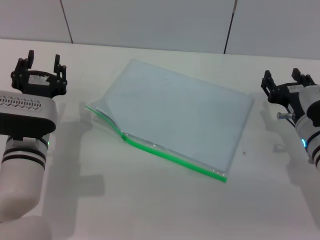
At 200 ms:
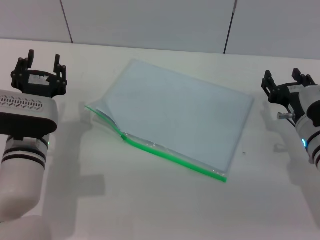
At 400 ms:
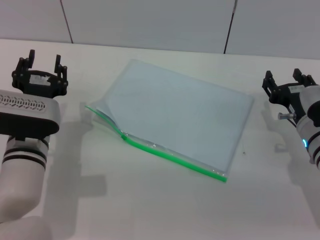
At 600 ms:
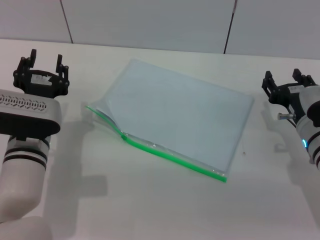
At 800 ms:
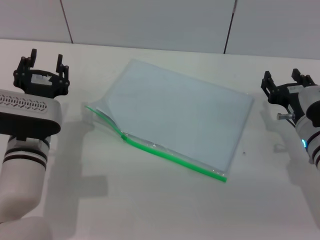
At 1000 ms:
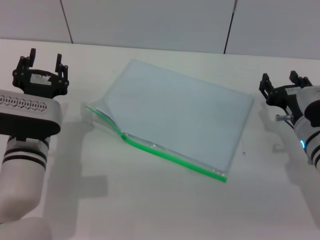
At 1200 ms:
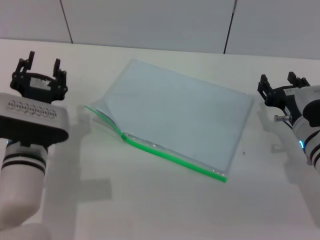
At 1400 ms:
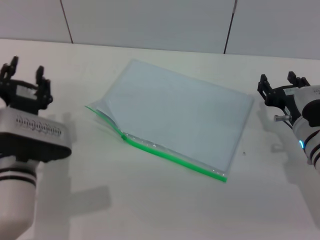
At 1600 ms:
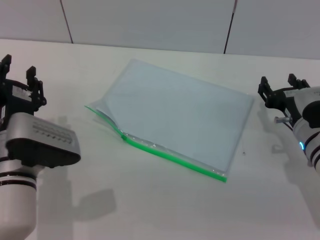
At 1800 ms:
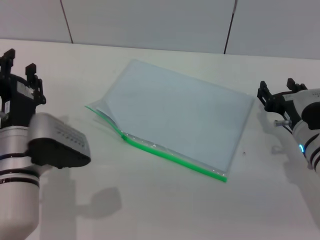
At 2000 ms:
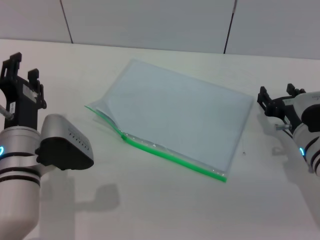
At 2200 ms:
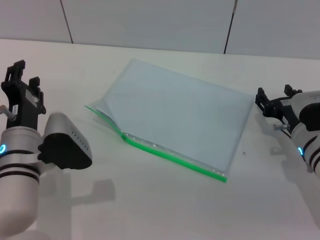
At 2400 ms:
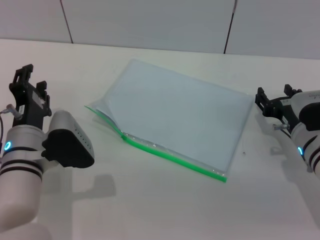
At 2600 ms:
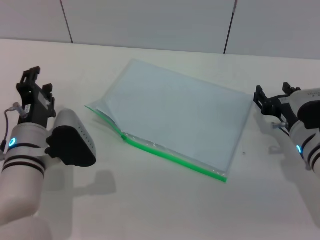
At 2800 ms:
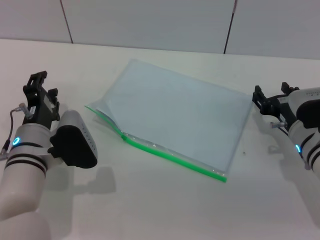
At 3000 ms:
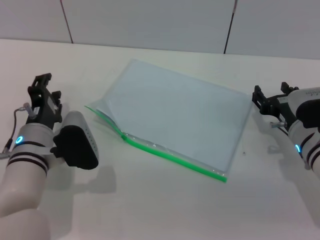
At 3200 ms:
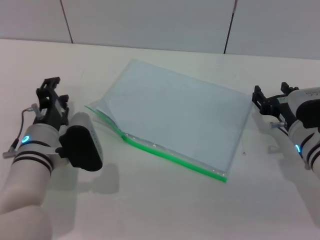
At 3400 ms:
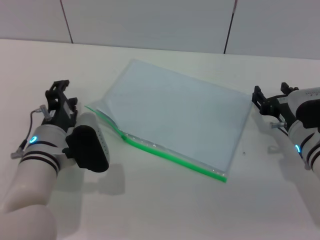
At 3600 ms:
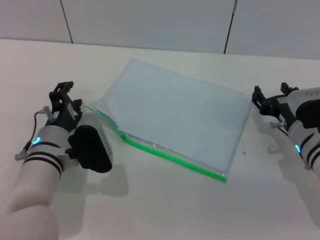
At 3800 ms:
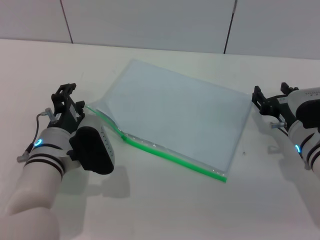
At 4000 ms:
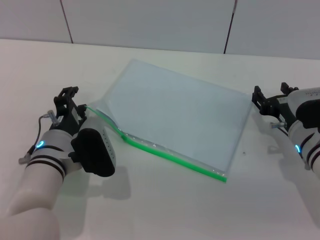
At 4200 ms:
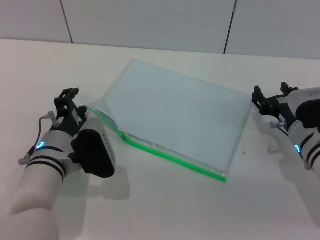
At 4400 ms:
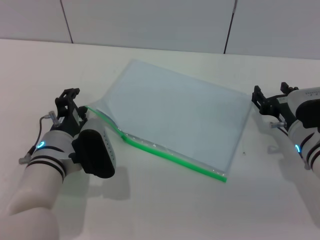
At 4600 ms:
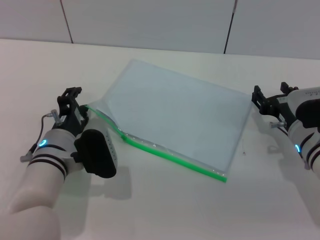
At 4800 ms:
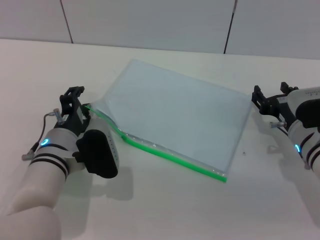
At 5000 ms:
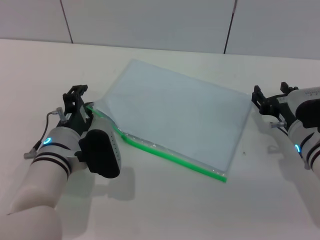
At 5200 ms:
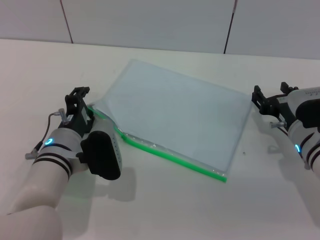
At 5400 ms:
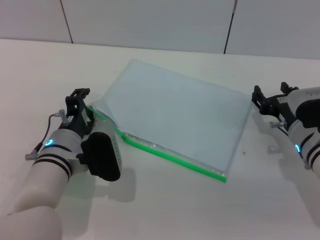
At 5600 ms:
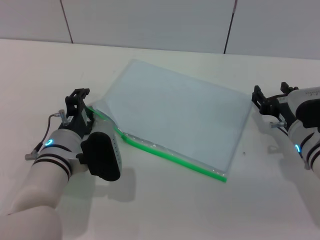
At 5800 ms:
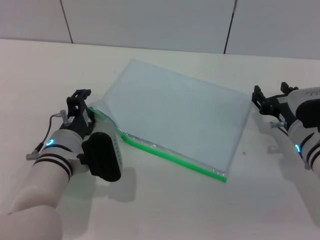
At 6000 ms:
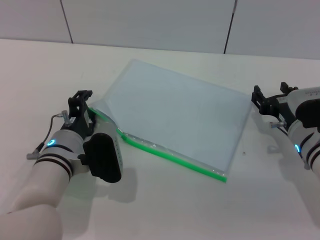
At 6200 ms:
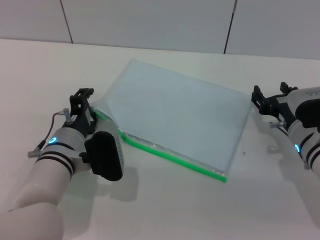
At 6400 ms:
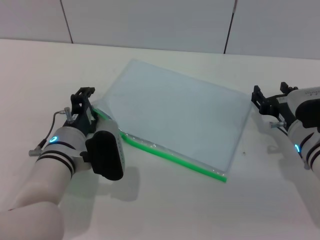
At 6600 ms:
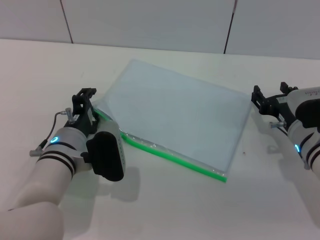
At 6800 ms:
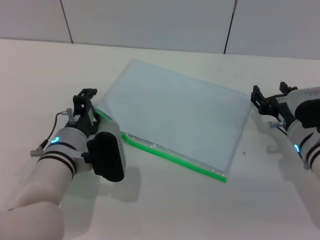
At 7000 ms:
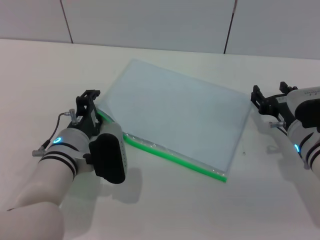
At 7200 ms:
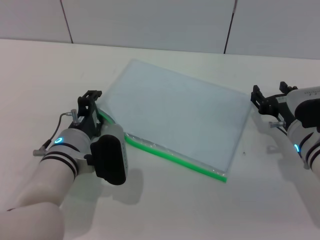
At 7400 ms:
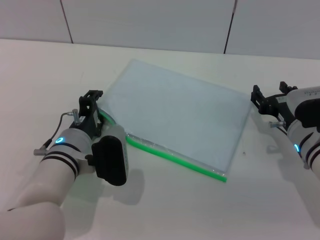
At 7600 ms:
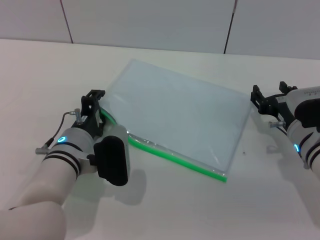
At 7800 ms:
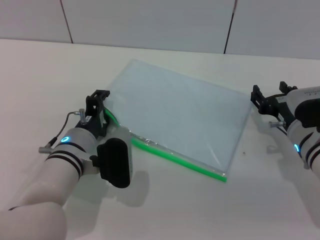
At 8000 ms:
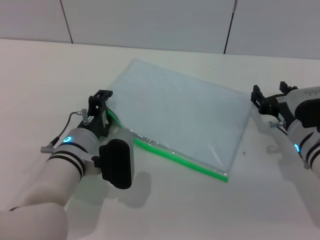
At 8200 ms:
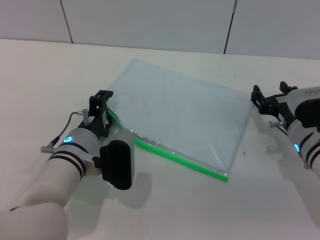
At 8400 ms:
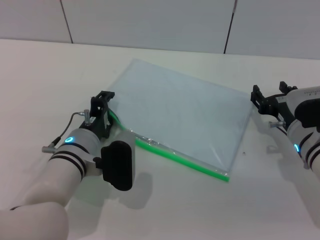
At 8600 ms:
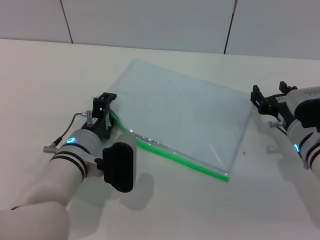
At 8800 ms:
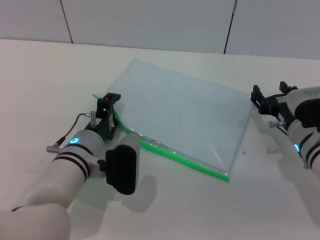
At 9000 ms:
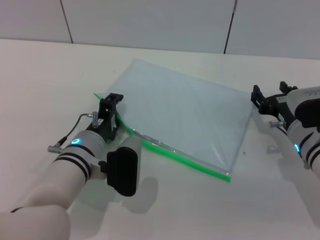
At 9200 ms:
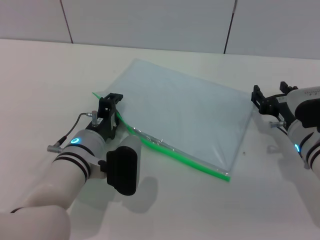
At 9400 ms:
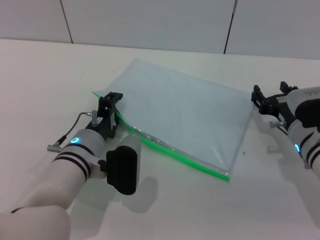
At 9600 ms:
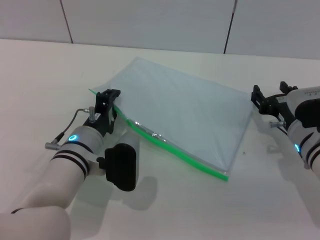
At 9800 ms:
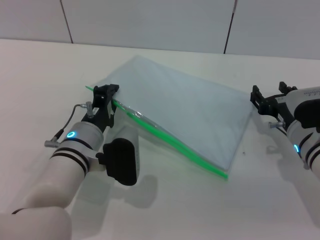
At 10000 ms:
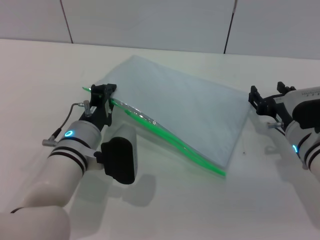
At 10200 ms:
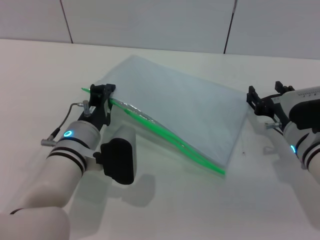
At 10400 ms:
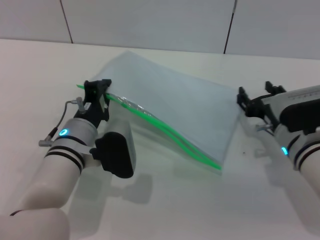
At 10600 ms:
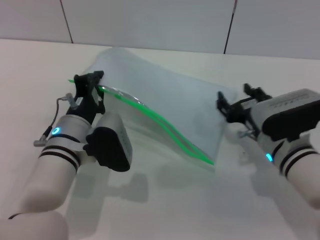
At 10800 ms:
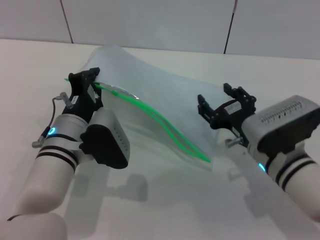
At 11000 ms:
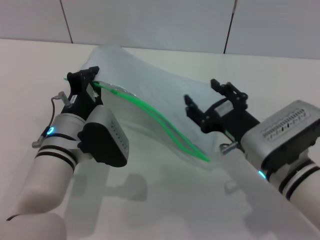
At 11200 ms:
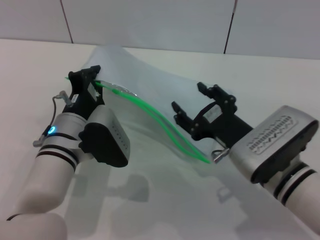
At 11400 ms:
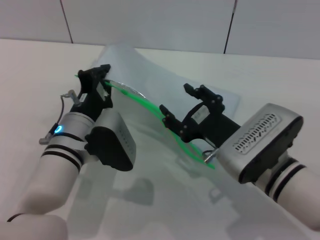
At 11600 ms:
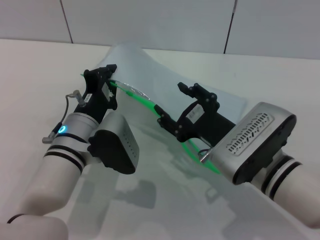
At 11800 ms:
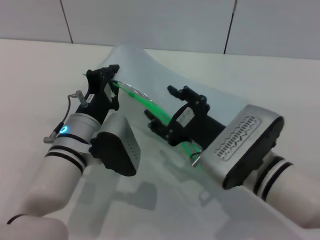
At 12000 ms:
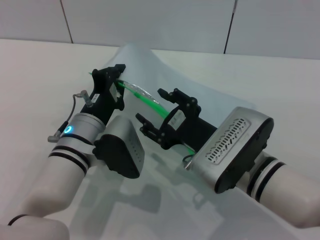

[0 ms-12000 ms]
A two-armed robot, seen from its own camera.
Step, 0 ms to 10000 ms: Pick up the transparent plastic bag with the left gripper.
1600 ms to 3000 ms: The left gripper moves roughly 5 cm.
3000 ms to 7600 ms: The grippers stay close to where they were, moving slightly.
7600 ms to 9000 ms: The grippers stay close to where they were, moving slightly.
9000 ms to 10400 ms: The left gripper closes up.
10400 ms to 12000 ms: The right gripper is displaced to the left and backward by approximately 10 cm.

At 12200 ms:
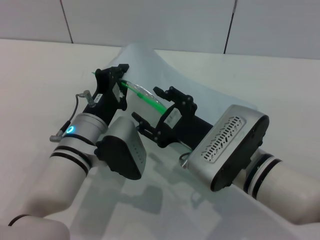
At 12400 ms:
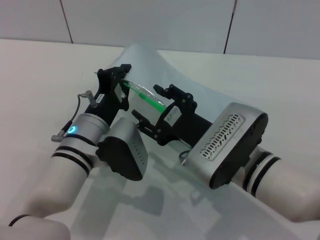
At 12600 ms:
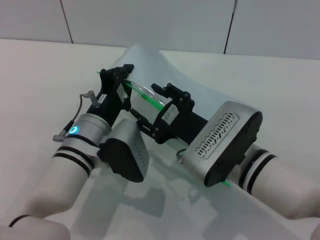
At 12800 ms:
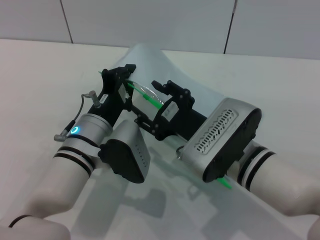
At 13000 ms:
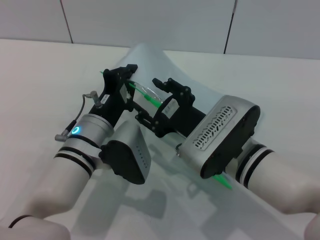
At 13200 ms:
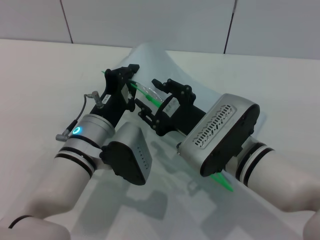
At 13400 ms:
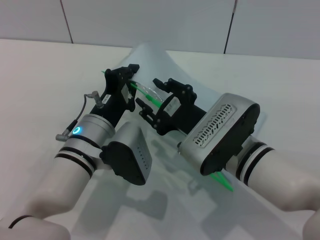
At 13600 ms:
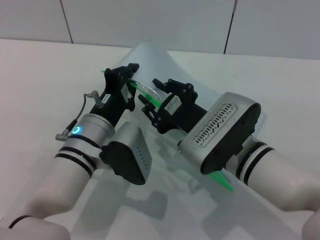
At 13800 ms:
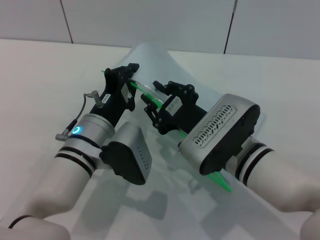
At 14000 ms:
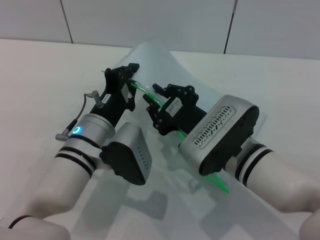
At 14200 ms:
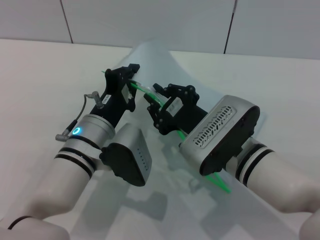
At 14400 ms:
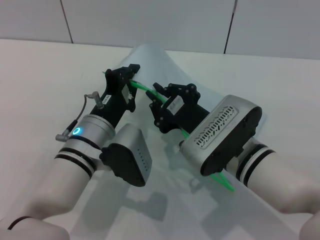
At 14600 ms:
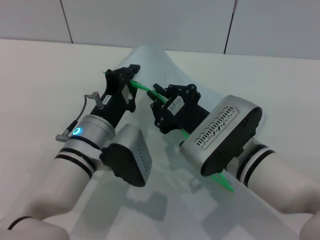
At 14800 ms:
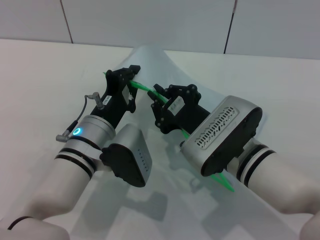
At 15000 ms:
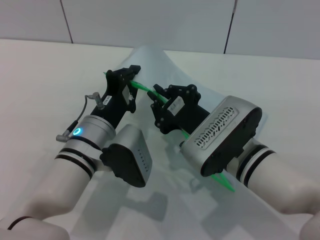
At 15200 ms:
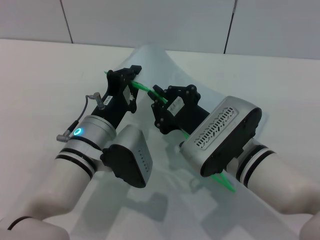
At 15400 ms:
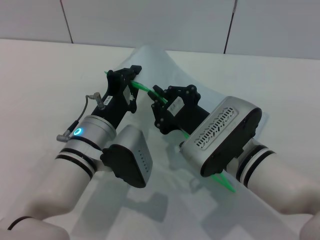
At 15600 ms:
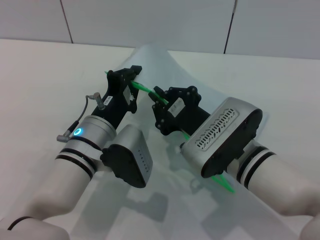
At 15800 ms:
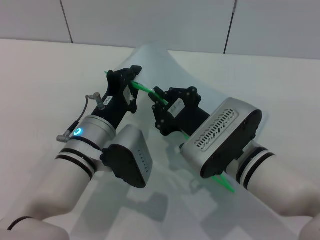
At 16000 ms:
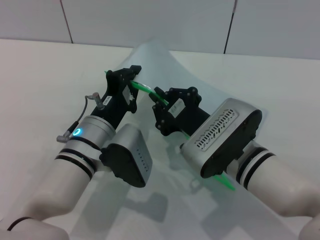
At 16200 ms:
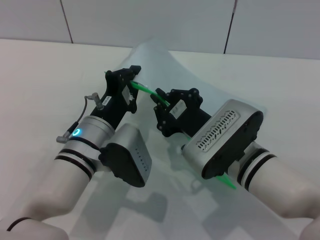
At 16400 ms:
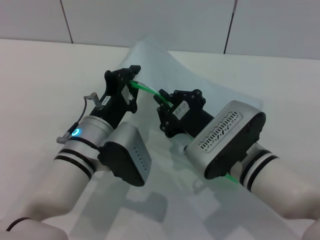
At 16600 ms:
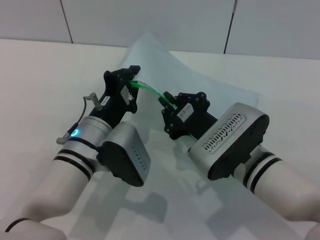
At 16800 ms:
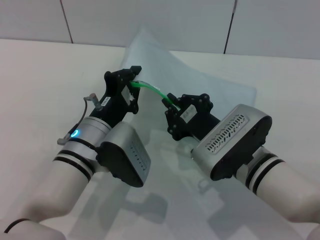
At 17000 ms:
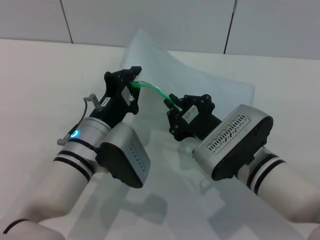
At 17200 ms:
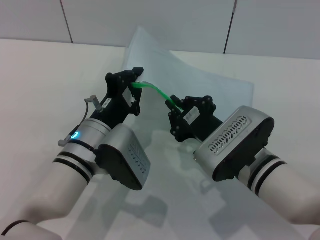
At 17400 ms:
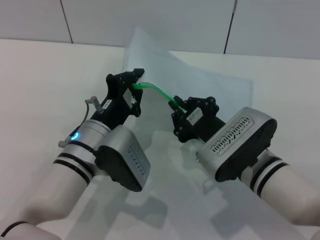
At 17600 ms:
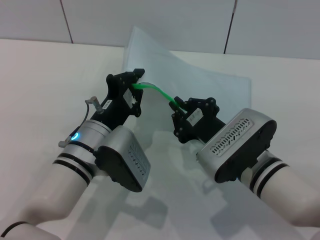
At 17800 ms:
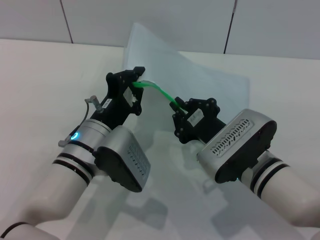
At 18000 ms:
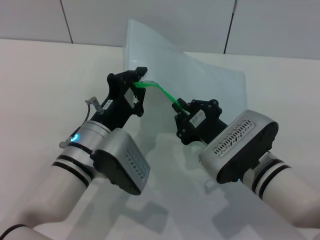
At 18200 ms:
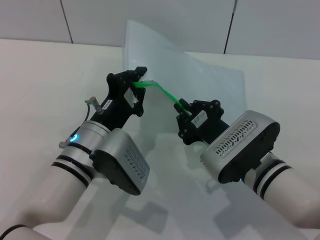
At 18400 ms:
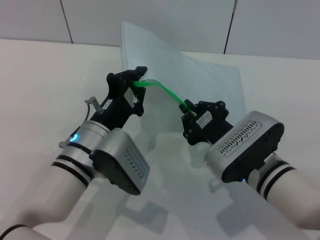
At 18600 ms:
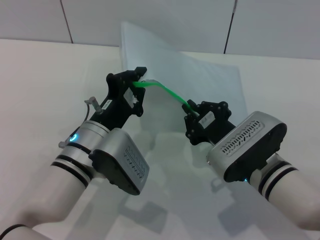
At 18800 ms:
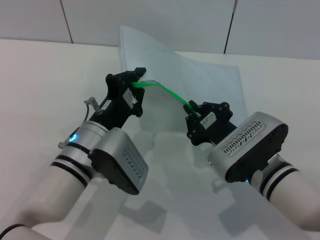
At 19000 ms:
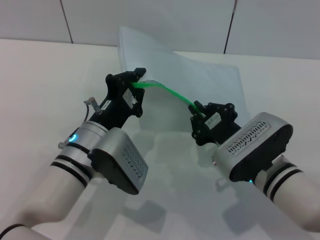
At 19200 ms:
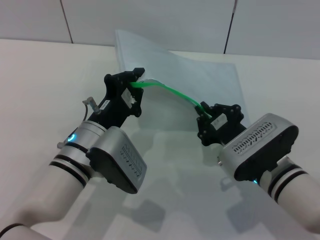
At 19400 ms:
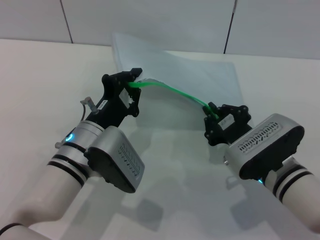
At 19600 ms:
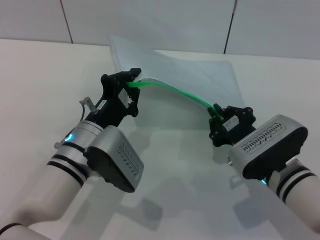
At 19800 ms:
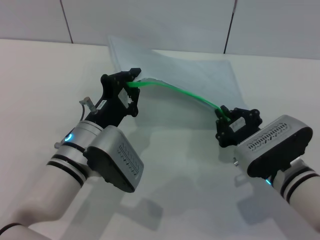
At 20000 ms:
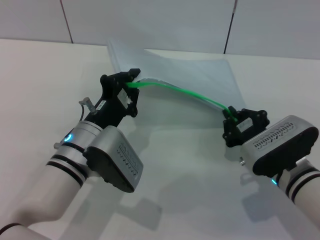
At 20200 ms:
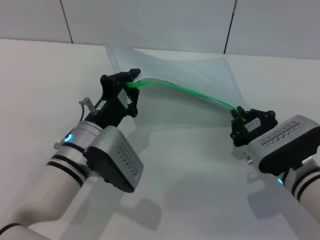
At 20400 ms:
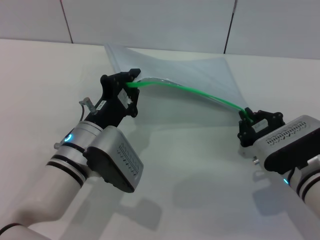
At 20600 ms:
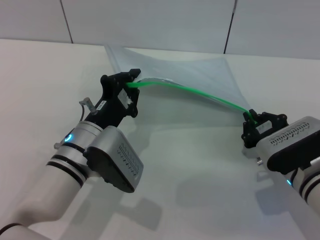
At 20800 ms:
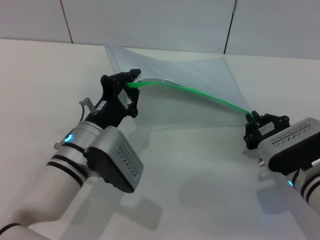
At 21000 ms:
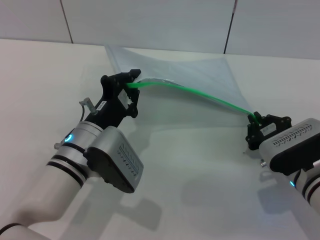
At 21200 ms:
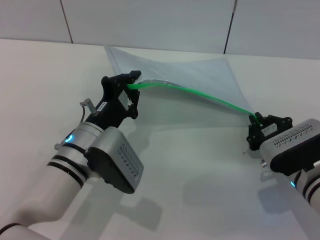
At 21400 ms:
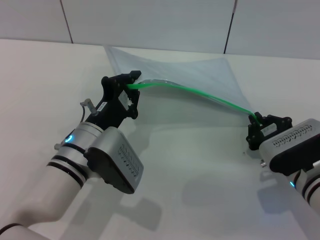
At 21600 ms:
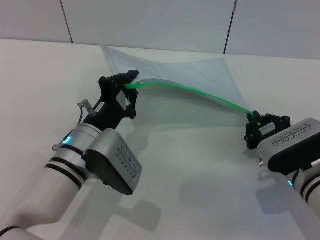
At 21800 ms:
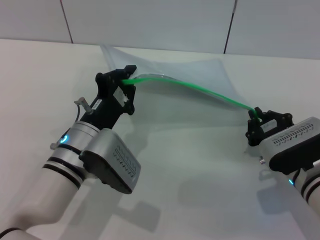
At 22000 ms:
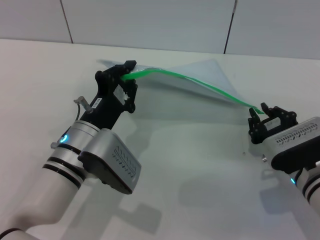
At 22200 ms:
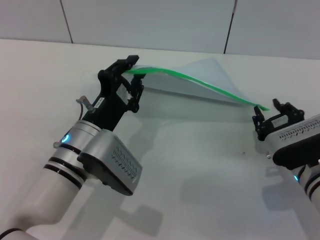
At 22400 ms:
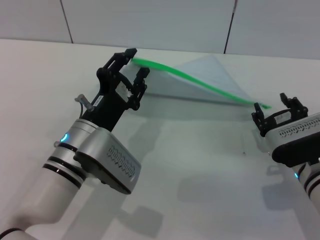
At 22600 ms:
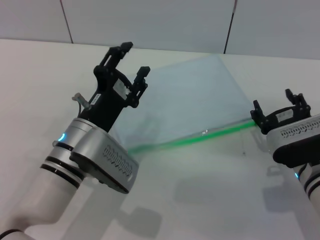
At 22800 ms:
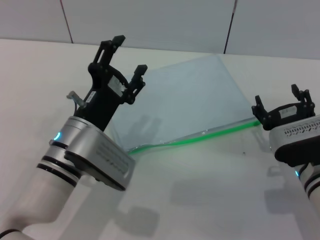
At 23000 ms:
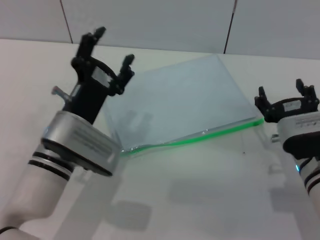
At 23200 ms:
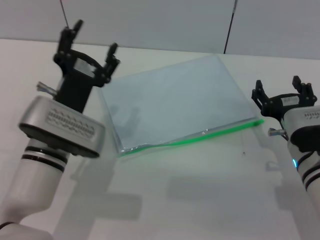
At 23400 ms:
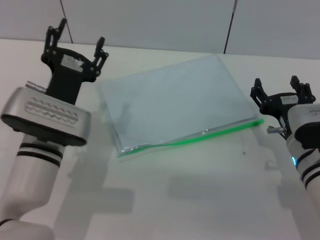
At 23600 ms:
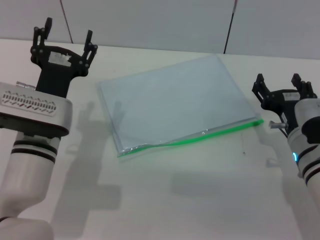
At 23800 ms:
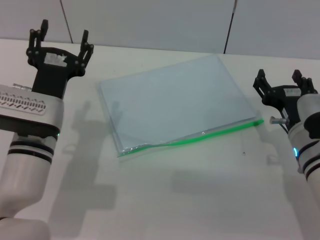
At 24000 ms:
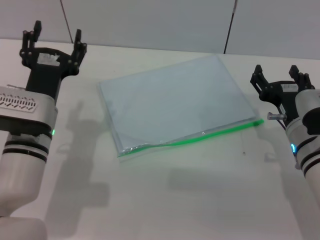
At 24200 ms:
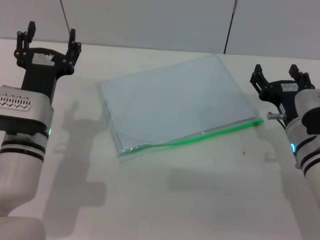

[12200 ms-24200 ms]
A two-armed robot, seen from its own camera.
Step, 12200 ms to 22200 ms: Pulling up the zipper on the transparent plastic bag with the right gripper to close it.
Step, 22400 ms to 22800 ms: Place the transparent plastic bag.
12200 ms to 13800 ms: The right gripper closes its fingers.
13800 ms to 15200 ms: The right gripper closes up.
15200 ms to 18200 ms: There are only small adjustments of the grippers.
18200 ms to 19800 ms: The right gripper shifts by some 5 cm.
19800 ms to 21200 ms: The grippers stay close to where they were, moving slightly.
21200 ms to 22600 ms: The right gripper opens up; the left gripper opens its fingers.
22600 ms to 24200 ms: The left gripper travels to the left by some 5 cm.
